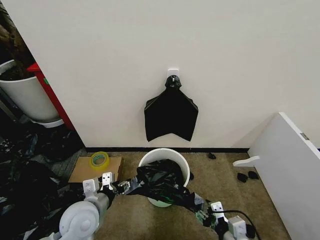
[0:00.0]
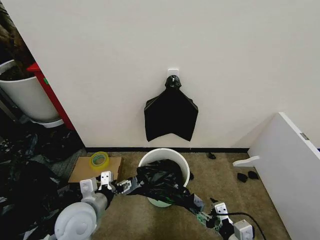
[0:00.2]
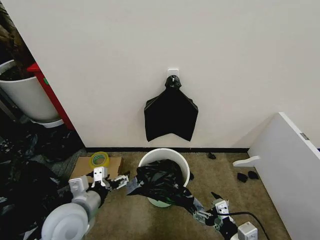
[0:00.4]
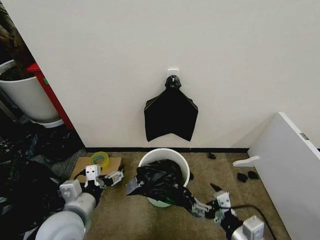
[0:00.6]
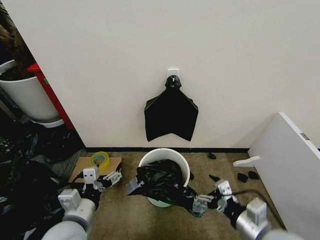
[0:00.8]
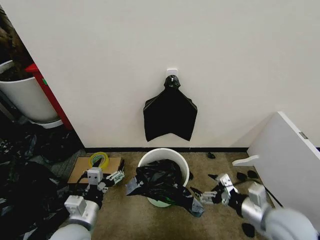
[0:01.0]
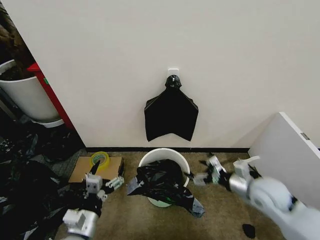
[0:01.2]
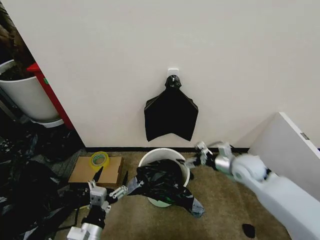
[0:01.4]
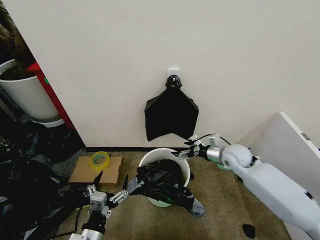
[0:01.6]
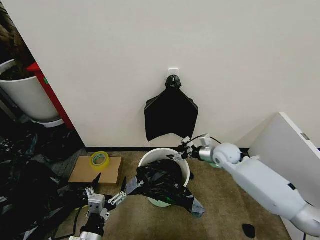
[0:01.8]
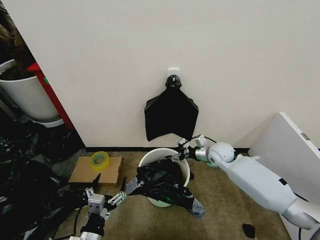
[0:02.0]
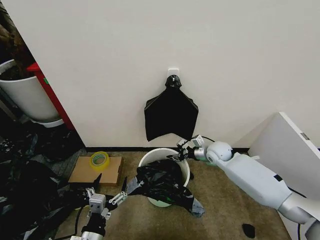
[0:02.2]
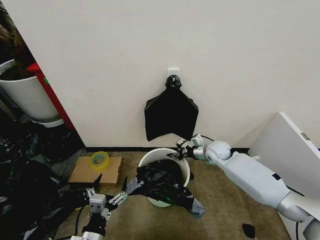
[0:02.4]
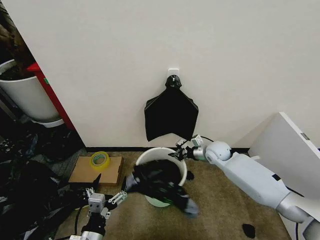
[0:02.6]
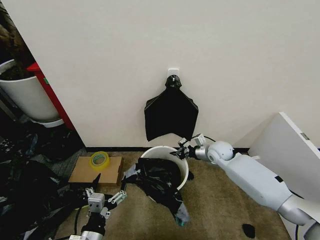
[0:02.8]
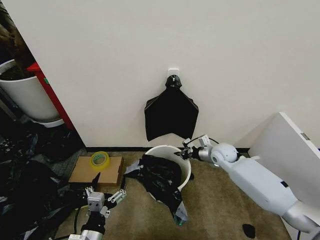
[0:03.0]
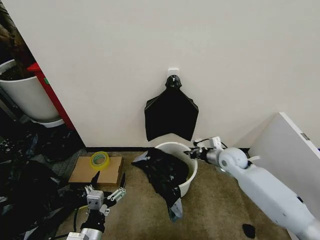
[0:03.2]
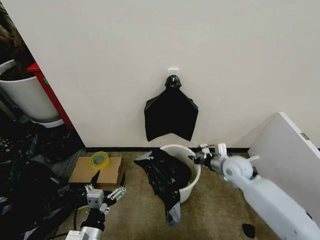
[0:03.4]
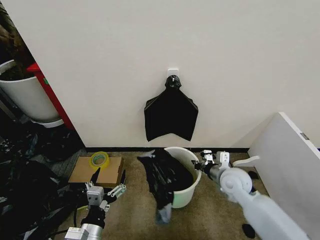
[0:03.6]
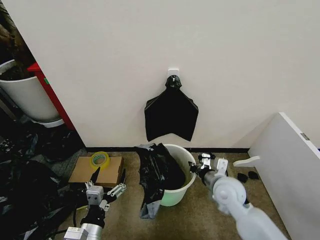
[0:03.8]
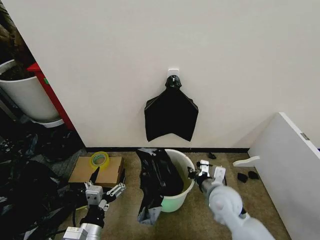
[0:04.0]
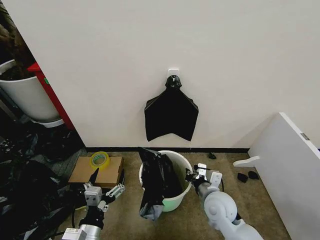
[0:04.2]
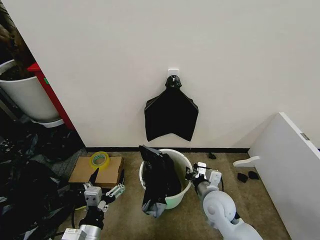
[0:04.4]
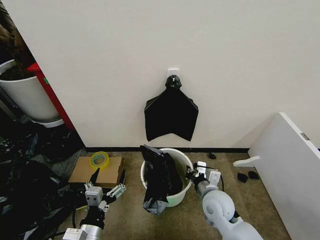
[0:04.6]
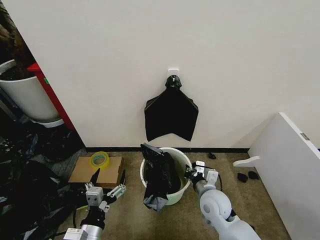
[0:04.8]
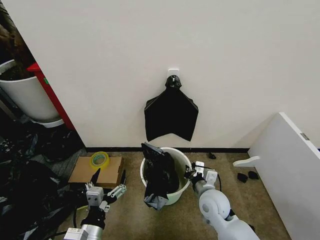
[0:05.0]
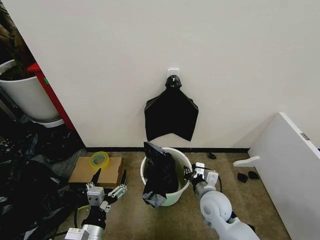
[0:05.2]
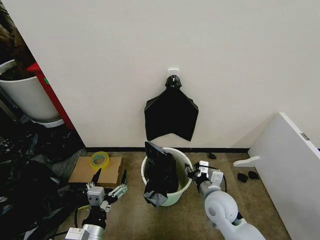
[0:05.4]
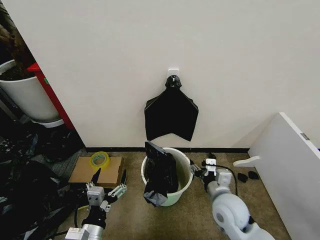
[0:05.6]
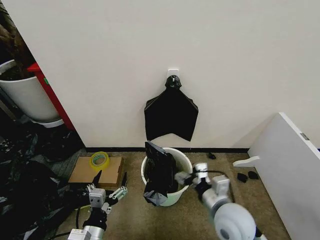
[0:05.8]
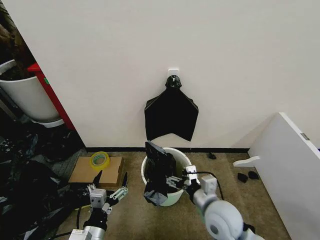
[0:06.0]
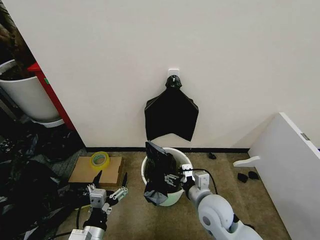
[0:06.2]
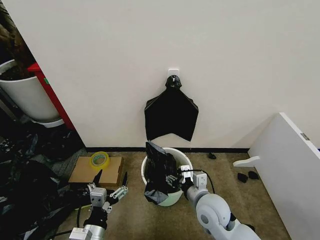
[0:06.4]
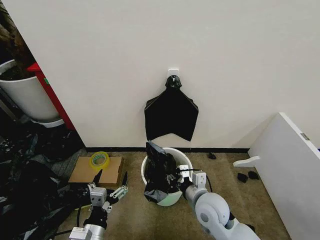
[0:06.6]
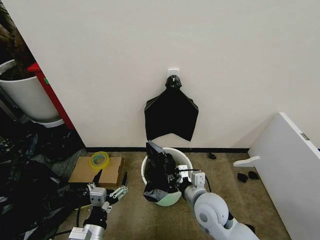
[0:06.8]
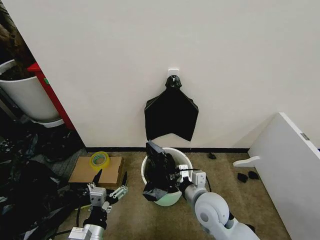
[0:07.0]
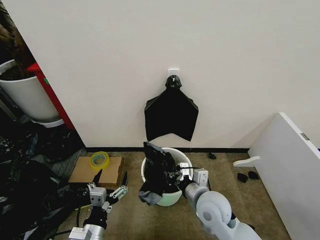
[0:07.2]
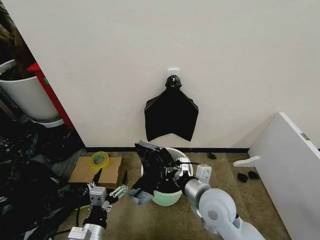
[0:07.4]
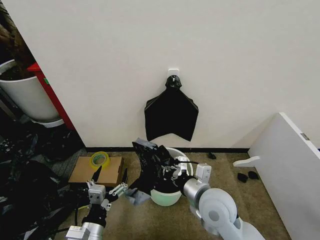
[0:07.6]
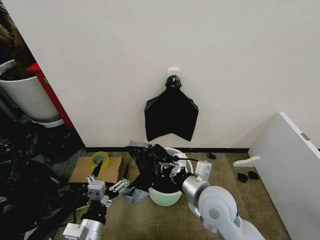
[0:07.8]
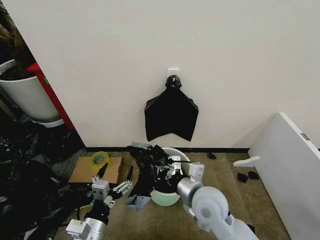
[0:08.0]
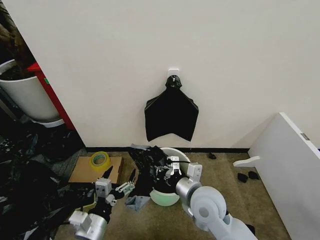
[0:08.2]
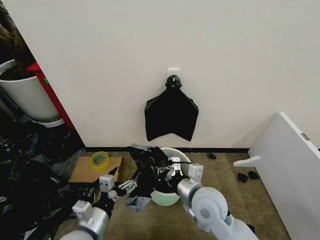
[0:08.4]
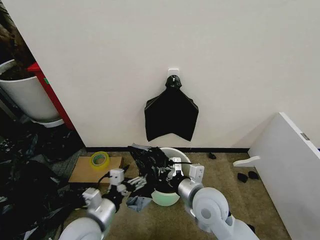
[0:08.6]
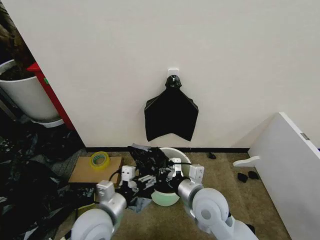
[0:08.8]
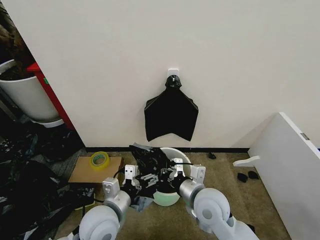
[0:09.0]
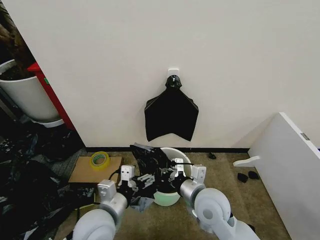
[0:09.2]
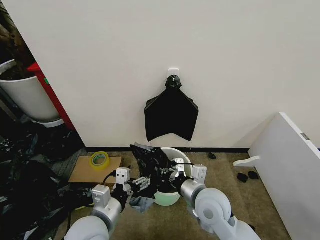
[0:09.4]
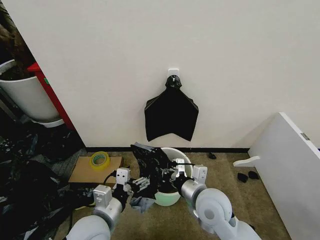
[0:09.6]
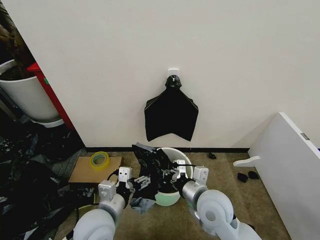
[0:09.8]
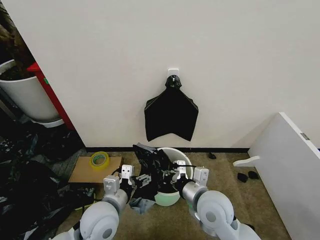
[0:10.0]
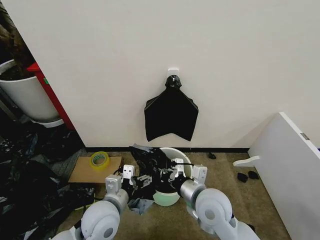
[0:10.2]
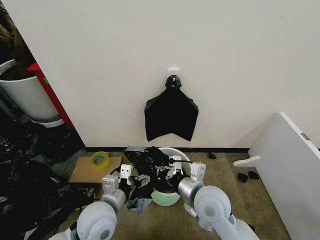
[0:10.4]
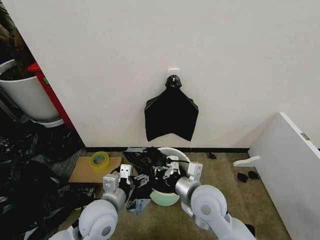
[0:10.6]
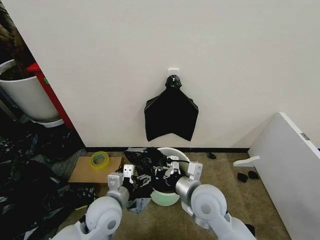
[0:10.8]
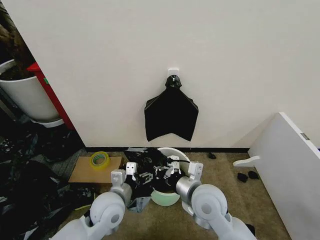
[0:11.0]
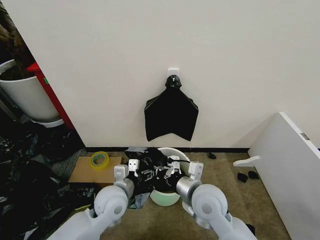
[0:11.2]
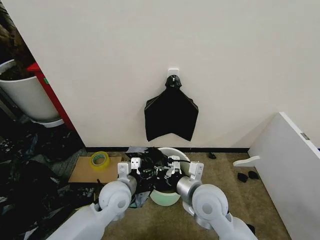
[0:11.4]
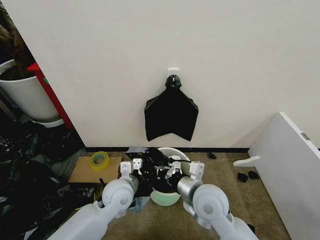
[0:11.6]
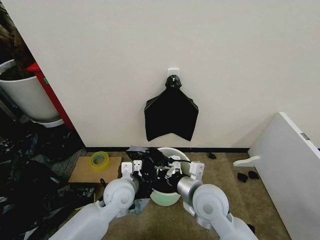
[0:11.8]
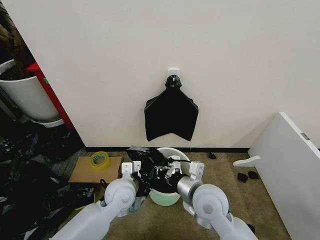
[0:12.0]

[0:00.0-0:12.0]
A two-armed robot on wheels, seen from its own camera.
Task of the whole recording: Place the garbage bag over the trash bin.
0:00.0 to 0:01.6: The left gripper travels backward and downward by some 15 cm. The right gripper shifts about 30 cm forward, and opens up.
0:01.6 to 0:03.0: The right gripper shifts by approximately 5 cm, and closes its fingers.
0:03.0 to 0:04.4: The right gripper travels backward by approximately 20 cm.
0:04.4 to 0:06.0: The right gripper shifts by roughly 5 cm, and opens up.
0:06.0 to 0:07.6: The right gripper changes place by roughly 5 cm, and closes.
0:07.6 to 0:09.0: The left gripper shifts approximately 10 cm forward.
0:09.0 to 0:10.4: The grippers make only small movements.
0:10.4 to 0:12.0: The left gripper heads forward, covering some 10 cm, and closes its fingers.

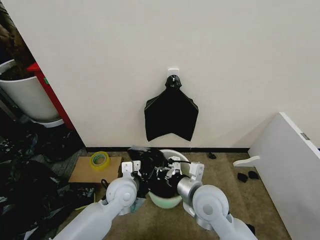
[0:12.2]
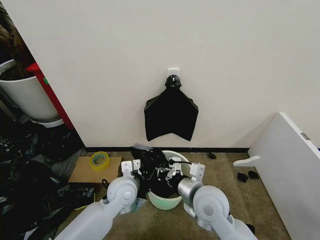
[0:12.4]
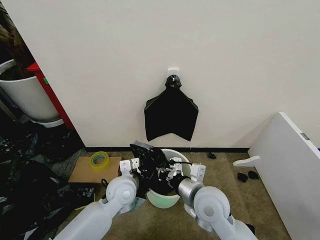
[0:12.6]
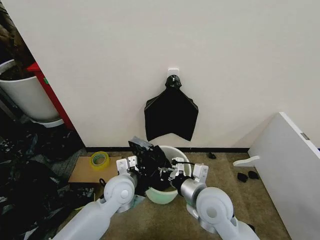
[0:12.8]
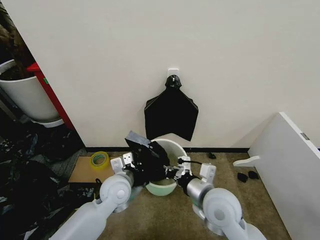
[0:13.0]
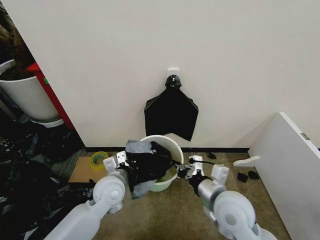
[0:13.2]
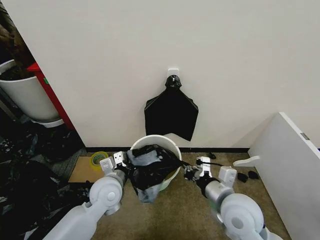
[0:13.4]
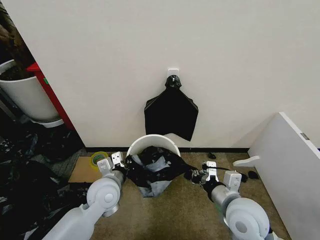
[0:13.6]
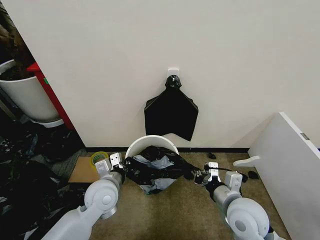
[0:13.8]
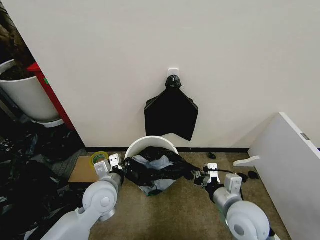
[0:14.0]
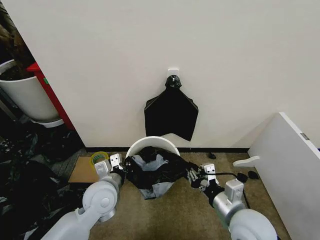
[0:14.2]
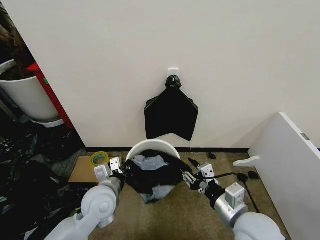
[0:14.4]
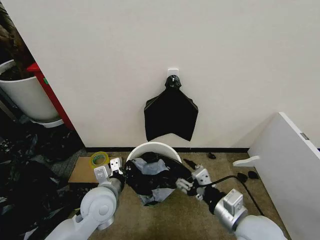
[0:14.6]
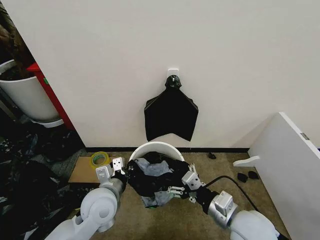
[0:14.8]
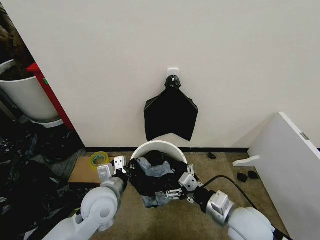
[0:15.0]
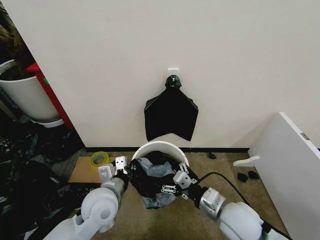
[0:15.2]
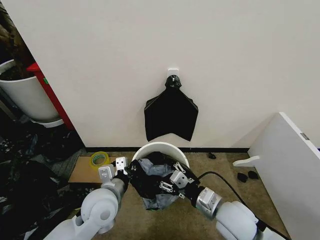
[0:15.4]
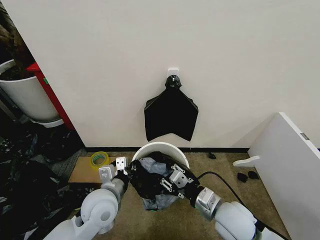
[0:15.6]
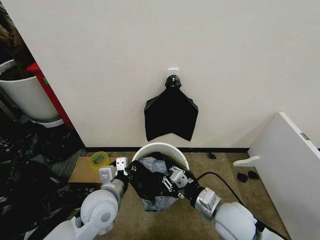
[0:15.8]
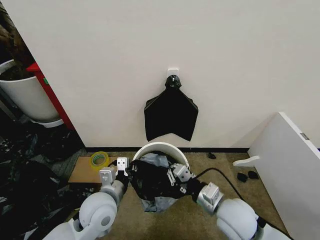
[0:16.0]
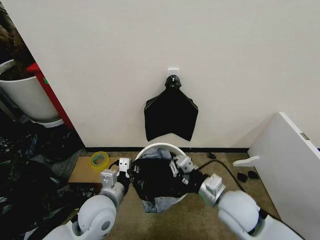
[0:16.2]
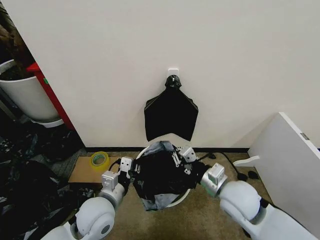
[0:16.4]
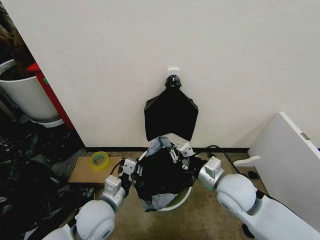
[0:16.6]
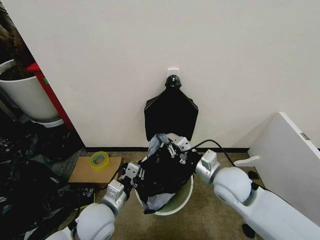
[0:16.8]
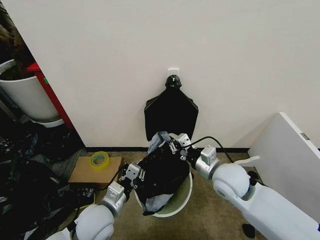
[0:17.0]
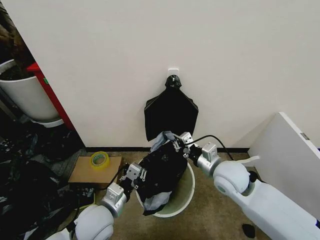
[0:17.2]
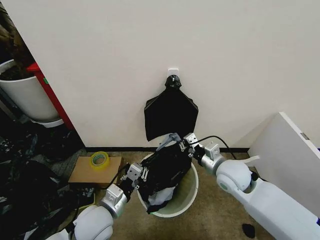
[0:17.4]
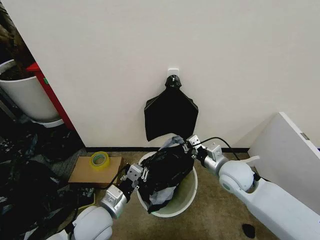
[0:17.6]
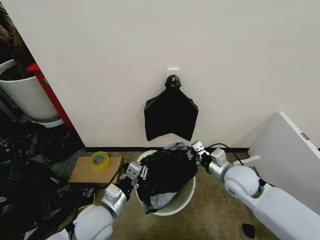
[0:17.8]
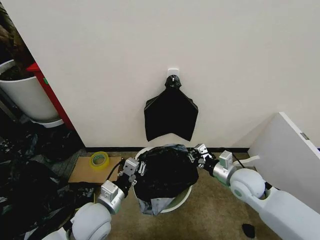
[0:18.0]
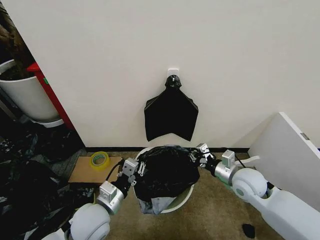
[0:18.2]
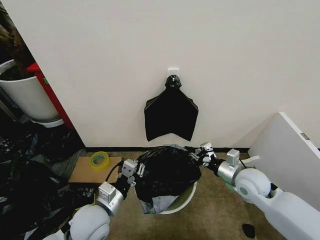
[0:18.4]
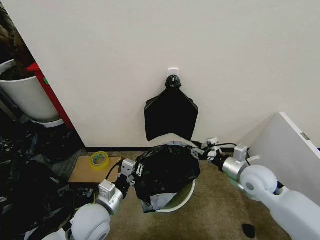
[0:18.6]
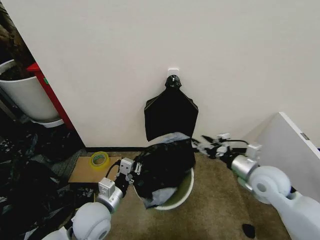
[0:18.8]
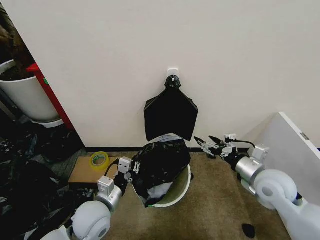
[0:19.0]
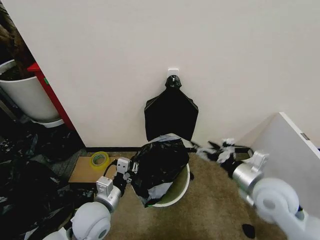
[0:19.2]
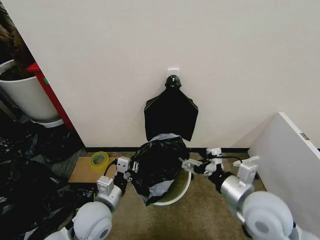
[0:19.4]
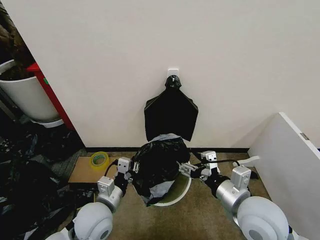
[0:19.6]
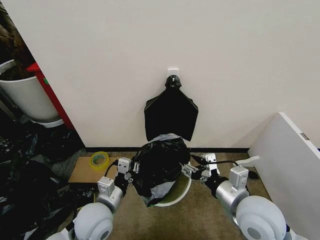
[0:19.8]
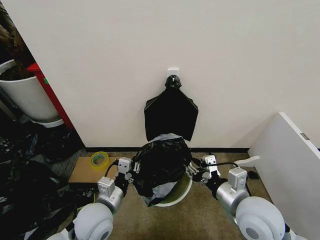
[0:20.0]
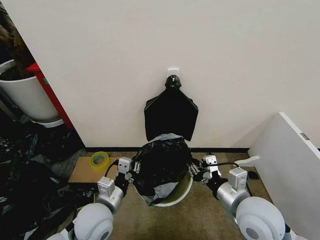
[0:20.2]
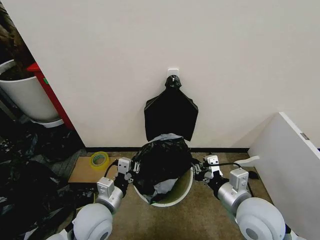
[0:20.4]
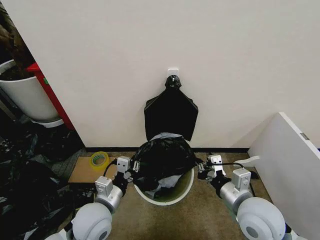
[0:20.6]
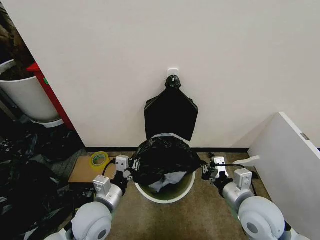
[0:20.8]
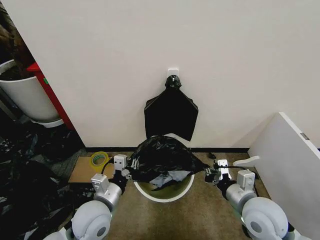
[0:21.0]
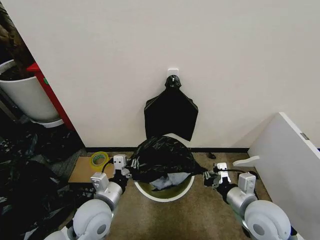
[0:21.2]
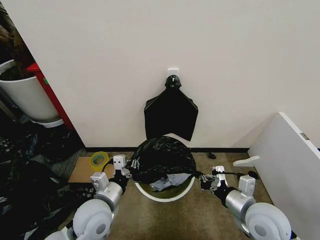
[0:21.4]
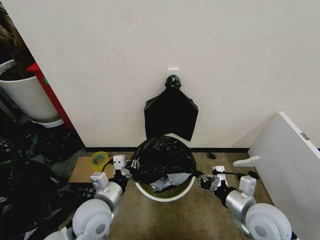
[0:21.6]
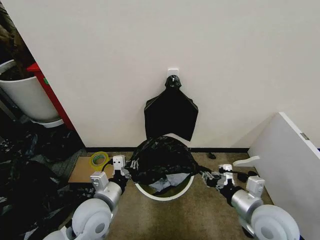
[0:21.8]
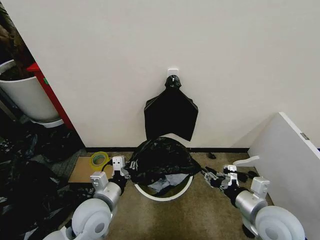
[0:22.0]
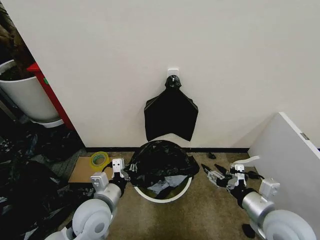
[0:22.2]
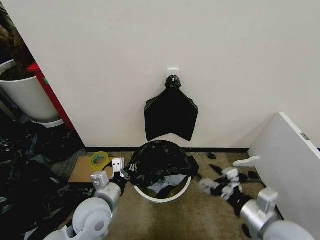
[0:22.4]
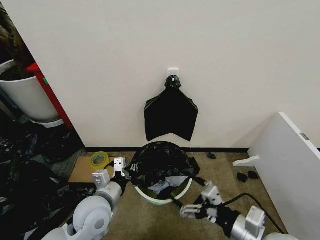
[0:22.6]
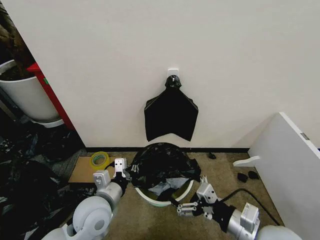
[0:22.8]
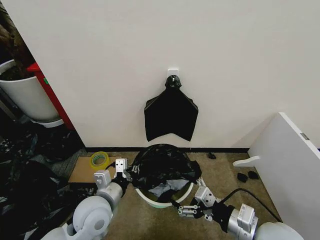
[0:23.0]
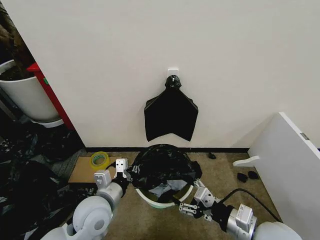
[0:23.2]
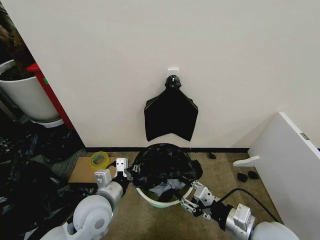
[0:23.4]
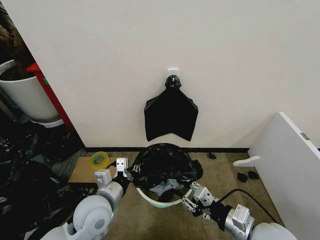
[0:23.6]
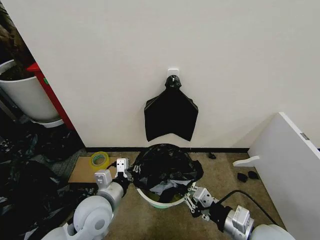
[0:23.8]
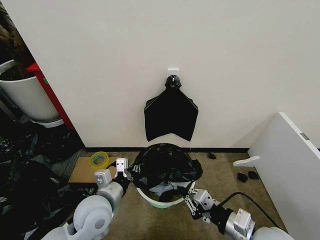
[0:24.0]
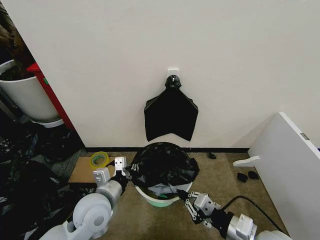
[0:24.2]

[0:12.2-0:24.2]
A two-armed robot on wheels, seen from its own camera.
Task of the whole recording: Place the garbage bag over the trash bin.
0:12.2 to 0:13.8: The right gripper travels to the right by approximately 10 cm, while the left gripper travels to the left by roughly 5 cm.
0:13.8 to 0:15.2: The right gripper opens up.
0:15.2 to 0:16.6: The right gripper travels forward by roughly 5 cm, and closes.
0:16.6 to 0:18.2: The right gripper travels to the right and downward by approximately 10 cm.
0:18.2 to 0:19.8: The right gripper goes approximately 15 cm backward, upward and to the left, and opens its fingers.
0:19.8 to 0:21.2: The right gripper heads downward, covering roughly 5 cm, and closes its fingers.
0:21.2 to 0:22.6: The right gripper travels backward by about 10 cm, and opens its fingers.
0:22.6 to 0:24.2: The right gripper closes up.
